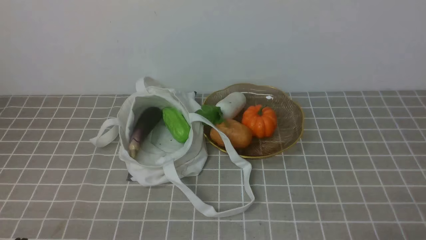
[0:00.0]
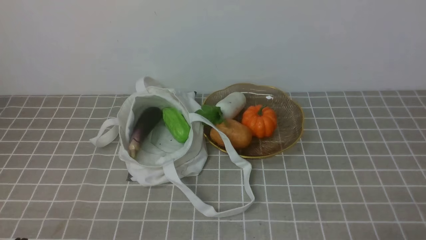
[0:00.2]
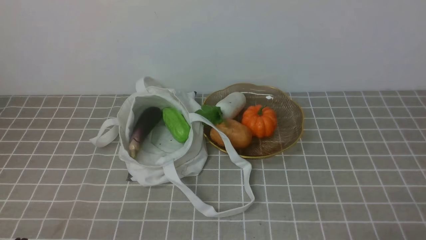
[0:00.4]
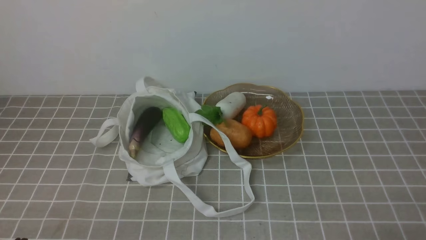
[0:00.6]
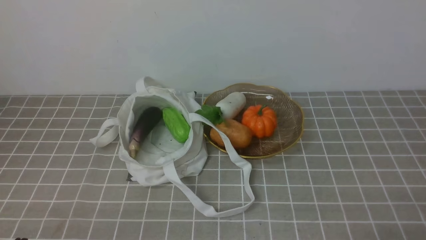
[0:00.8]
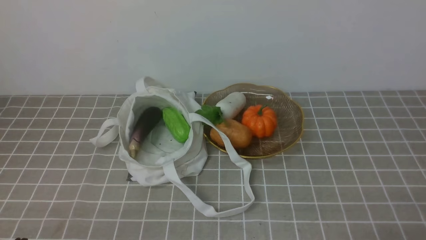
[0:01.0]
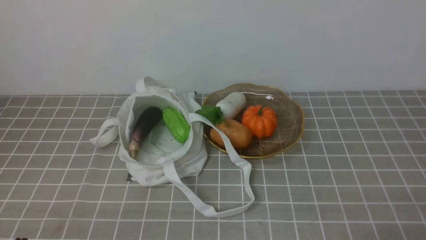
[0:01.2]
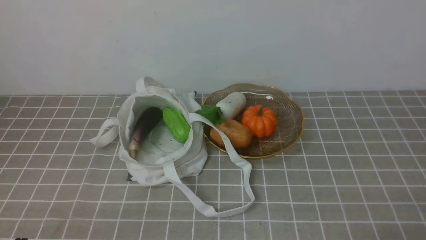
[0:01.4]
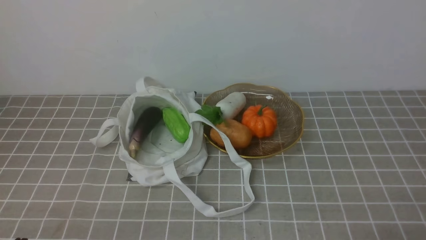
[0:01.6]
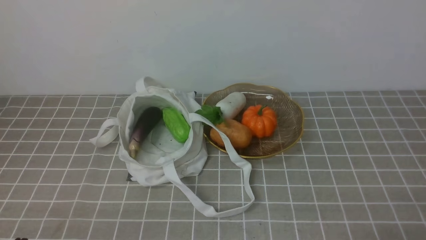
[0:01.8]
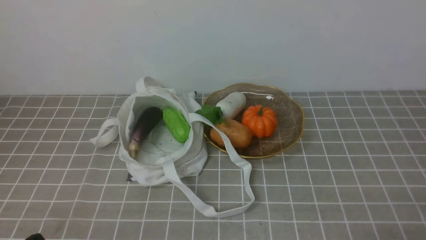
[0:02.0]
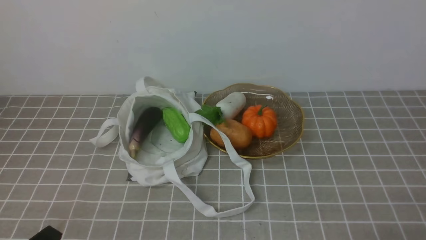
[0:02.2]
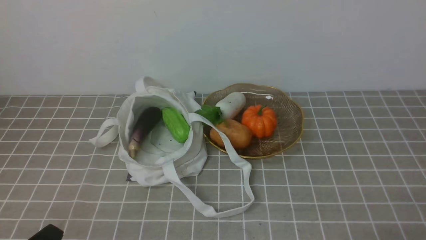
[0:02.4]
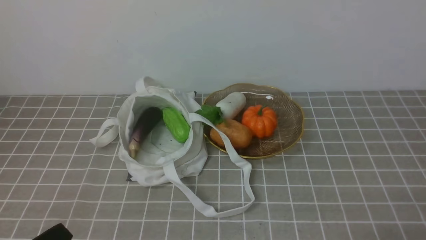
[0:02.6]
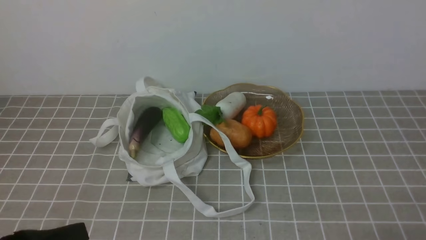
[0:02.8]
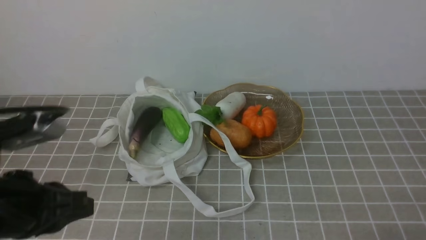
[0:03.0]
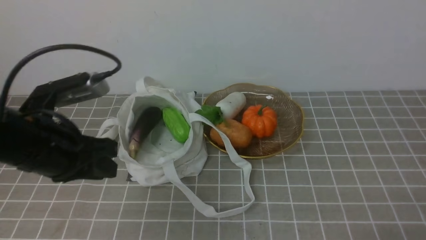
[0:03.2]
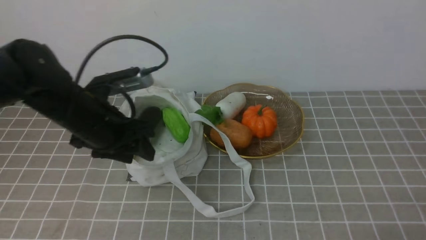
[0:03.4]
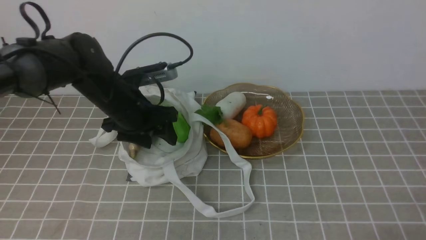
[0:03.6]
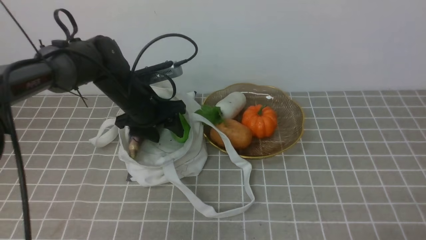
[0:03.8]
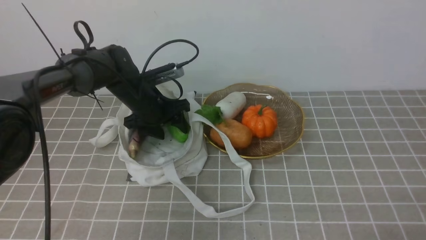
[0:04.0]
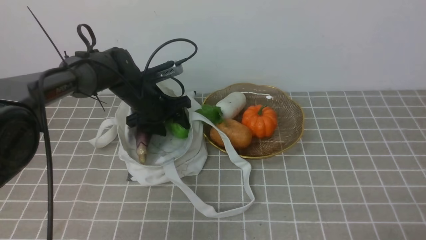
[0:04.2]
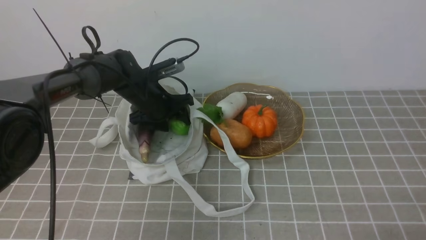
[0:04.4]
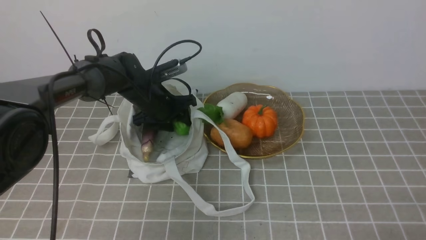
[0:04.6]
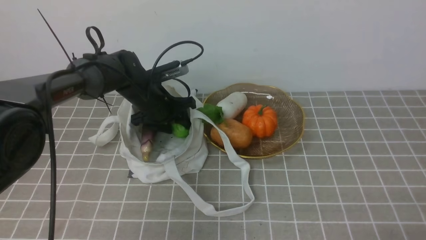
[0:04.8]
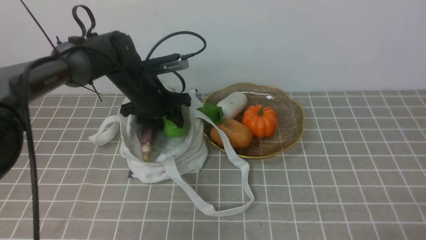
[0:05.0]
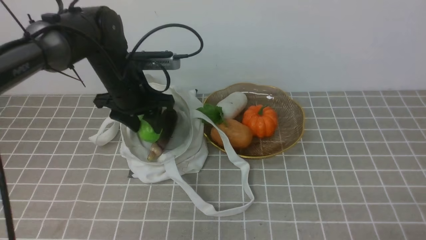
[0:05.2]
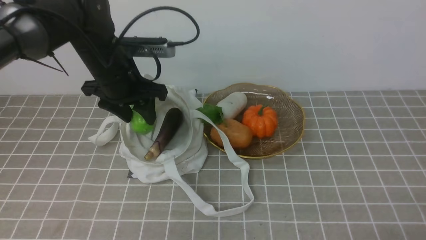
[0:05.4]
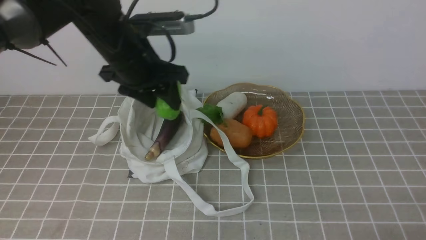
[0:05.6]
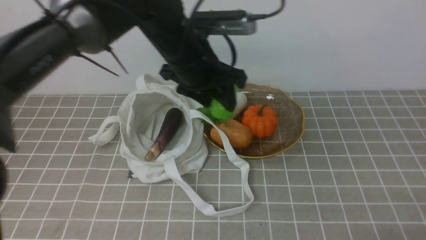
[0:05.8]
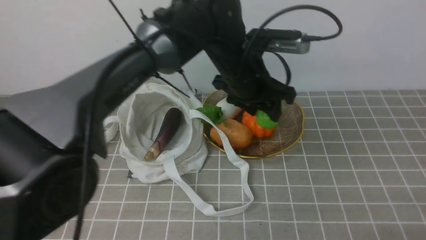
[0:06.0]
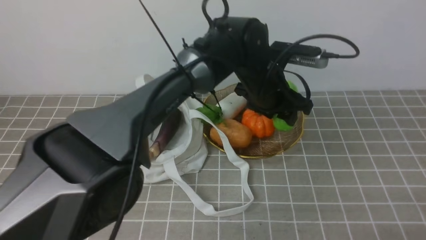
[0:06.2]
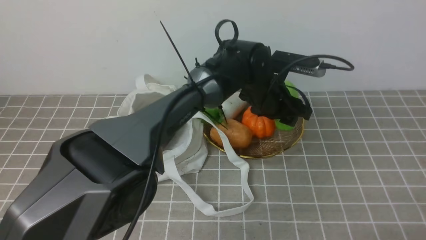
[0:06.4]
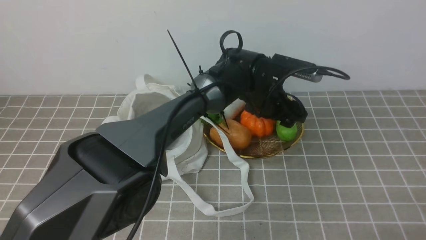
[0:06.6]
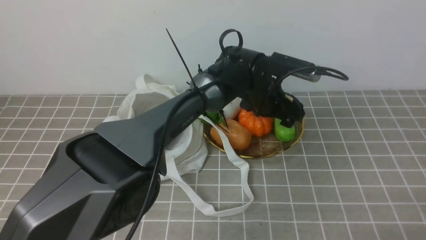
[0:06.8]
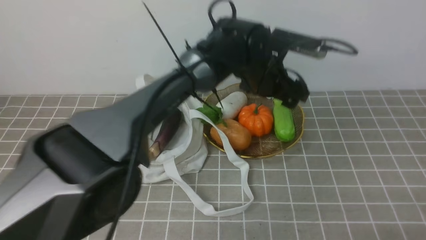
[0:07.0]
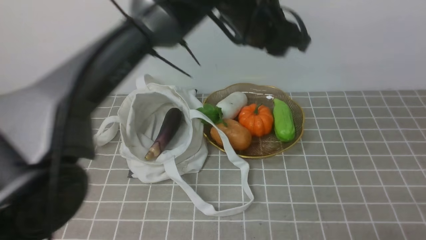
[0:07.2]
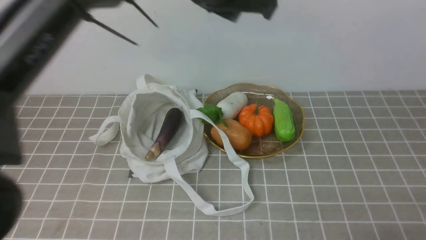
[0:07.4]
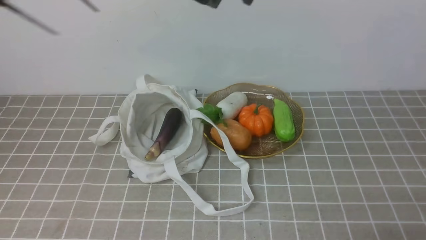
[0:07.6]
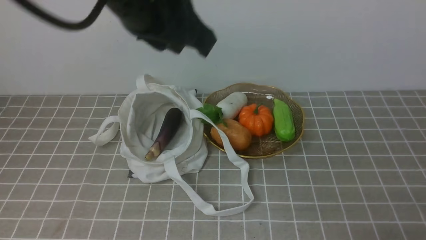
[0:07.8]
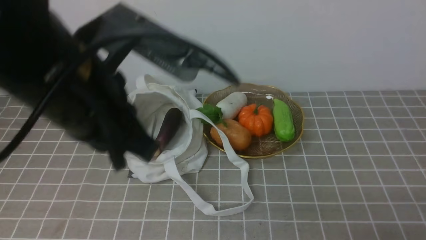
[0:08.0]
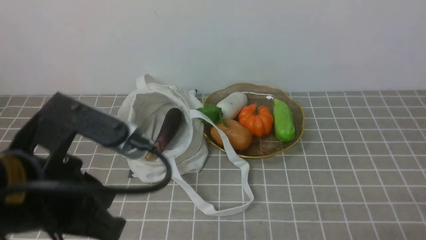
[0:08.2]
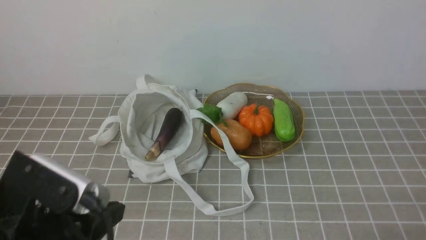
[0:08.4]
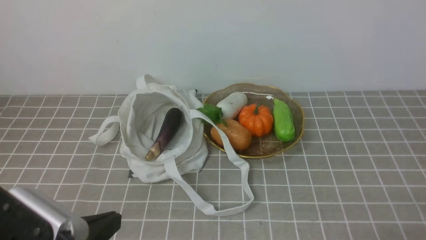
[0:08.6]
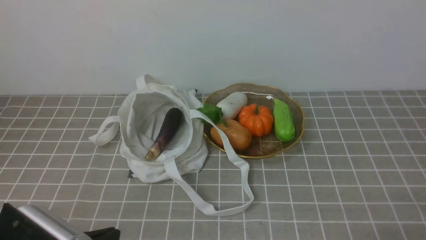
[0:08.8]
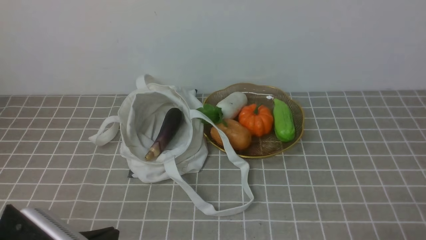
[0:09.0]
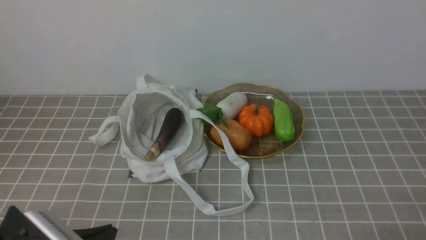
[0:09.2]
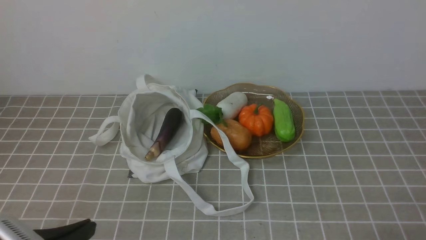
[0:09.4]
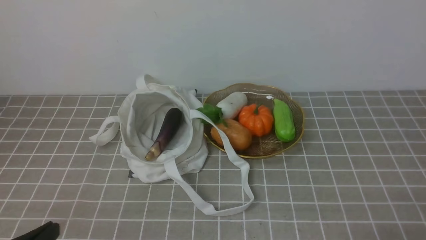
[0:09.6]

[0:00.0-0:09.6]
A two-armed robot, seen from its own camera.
Task of the whole recording: take vegetables from bag on grey coffee tablecloth place on plate.
Step, 0:00.0 to 0:04.6: Grasp the bitter melon with left gripper.
Step, 0:04.8 to 0:07.0: Place the bitter melon on the plate with left gripper.
0:00.0 to 0:01.6: The two grippers keep their place.
0:01.6 to 0:03.2: The left gripper goes roughly 20 cm forward and upward, and opens up.
0:03.2 to 0:04.8: The left gripper moves forward and downward, approximately 25 cm.
0:04.8 to 0:06.4: The left gripper goes about 20 cm to the right.
0:06.4 to 0:08.0: The left gripper goes roughly 35 cm backward, to the left and upward, and closes its fingers.
0:08.0 to 0:09.6: The left gripper heads downward, backward and to the left, covering about 25 cm.

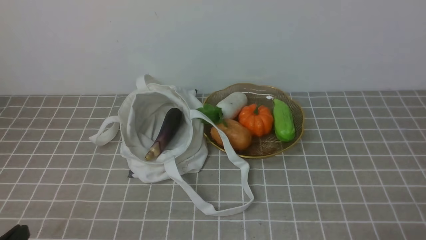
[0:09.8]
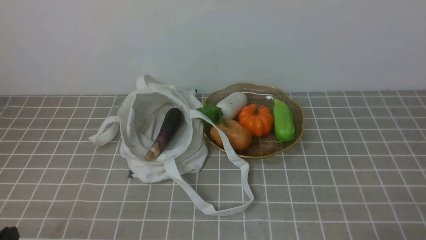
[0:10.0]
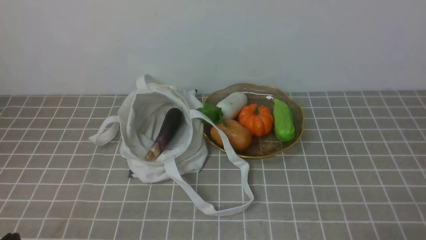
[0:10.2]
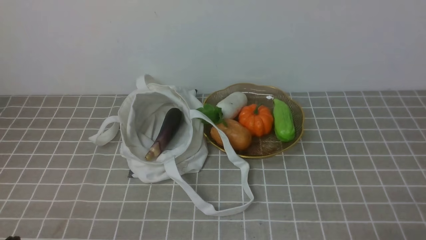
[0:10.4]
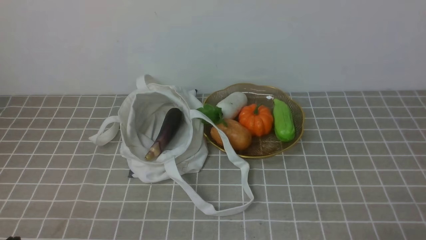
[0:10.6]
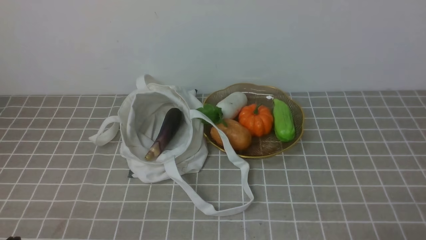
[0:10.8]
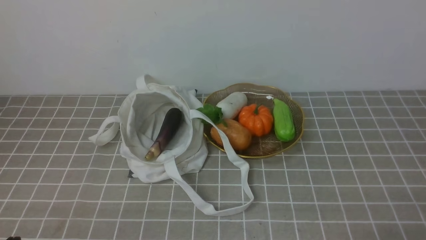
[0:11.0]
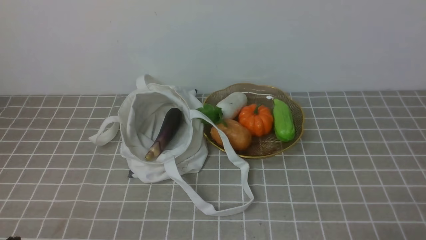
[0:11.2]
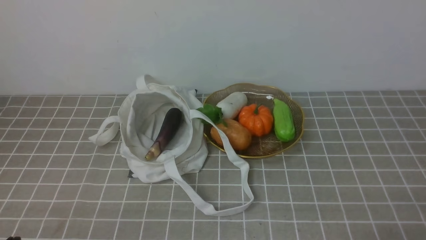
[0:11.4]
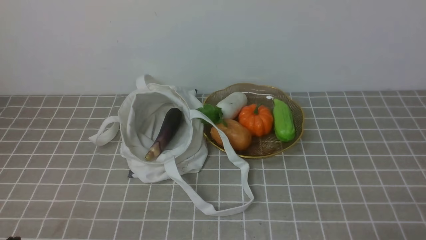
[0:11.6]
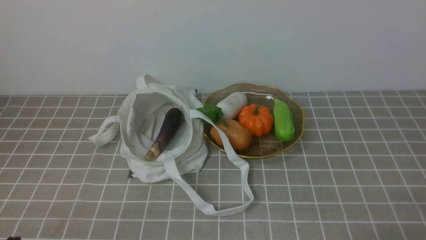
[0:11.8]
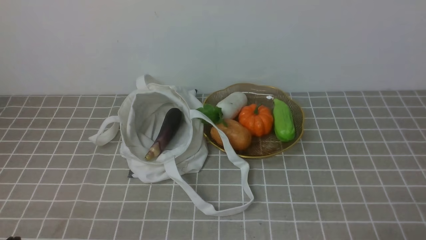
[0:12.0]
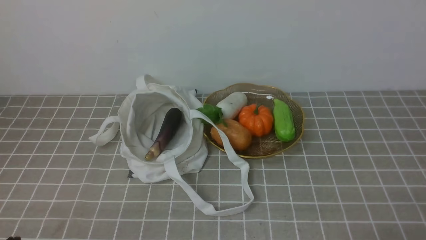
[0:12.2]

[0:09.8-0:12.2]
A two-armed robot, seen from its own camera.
Task of the whole recording: take vegetables from bag on grey coffee tablecloth place on plate.
0:11.0 to 0:12.2: Neither gripper changes place.
